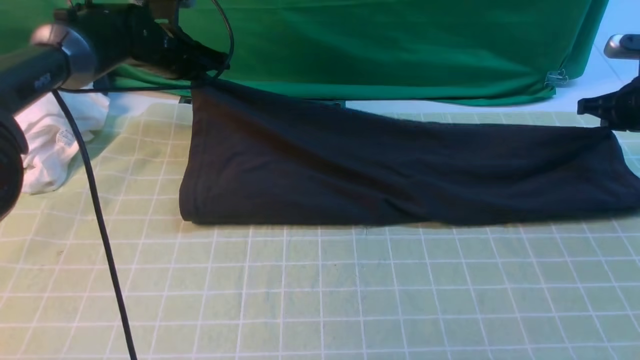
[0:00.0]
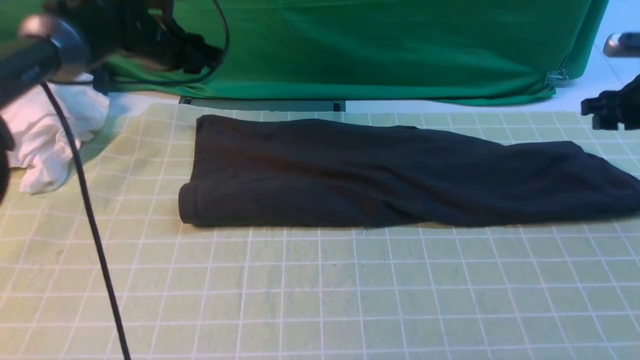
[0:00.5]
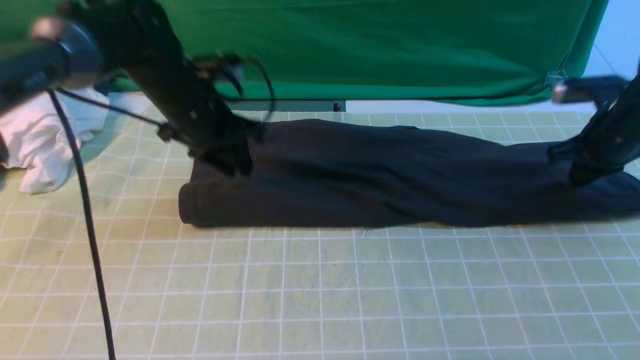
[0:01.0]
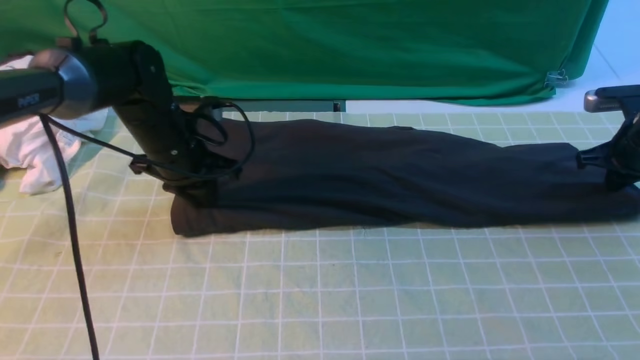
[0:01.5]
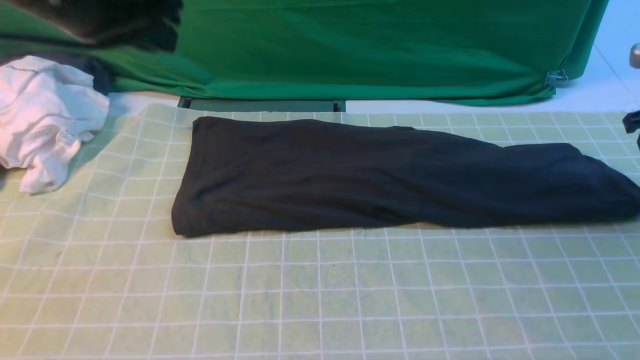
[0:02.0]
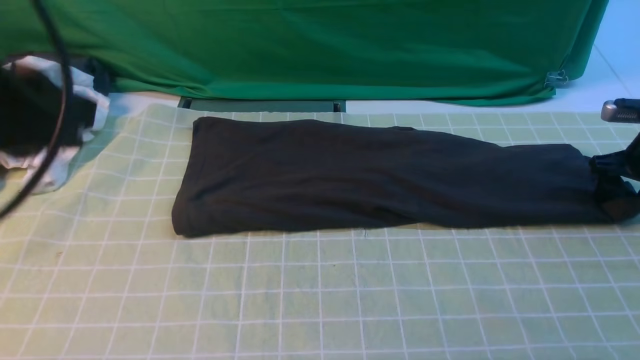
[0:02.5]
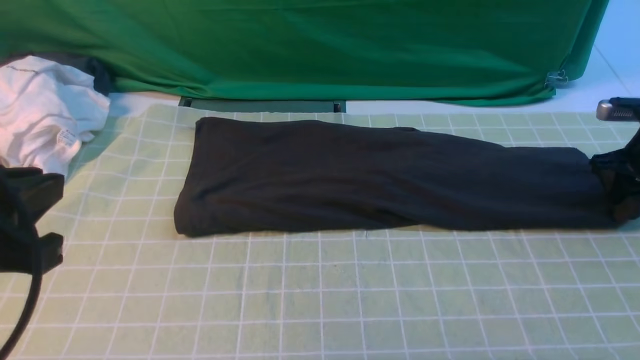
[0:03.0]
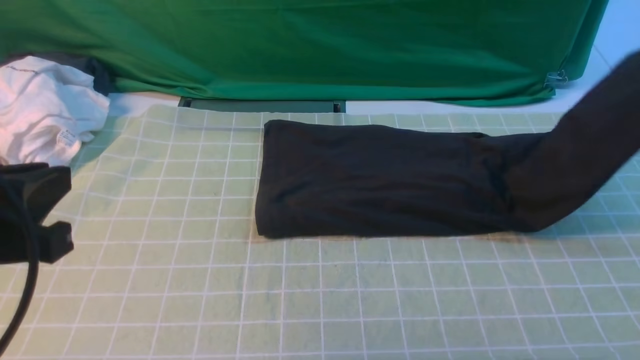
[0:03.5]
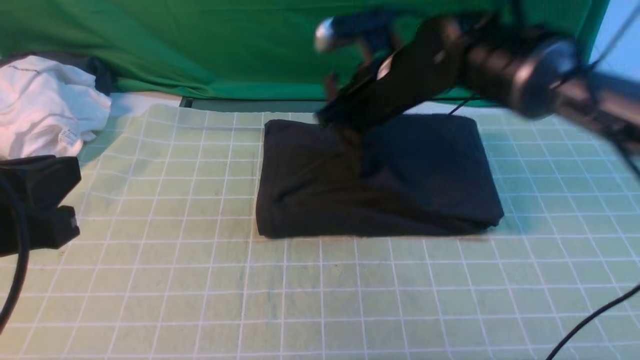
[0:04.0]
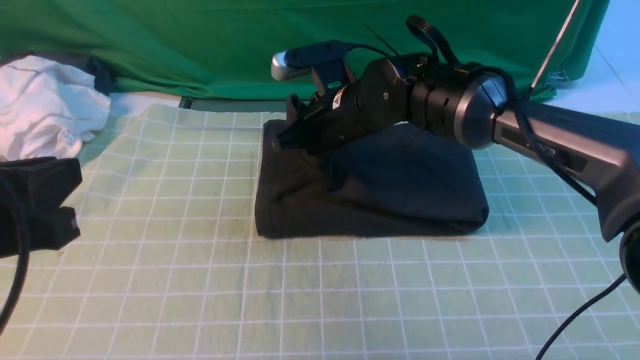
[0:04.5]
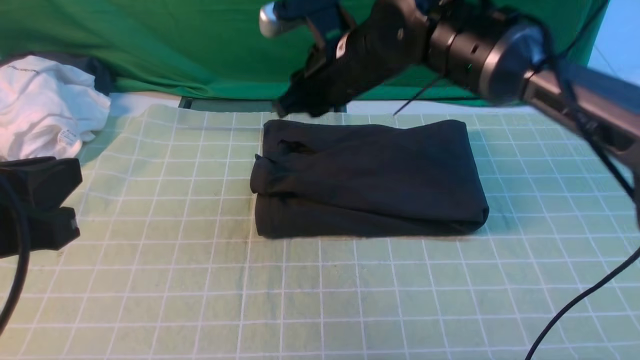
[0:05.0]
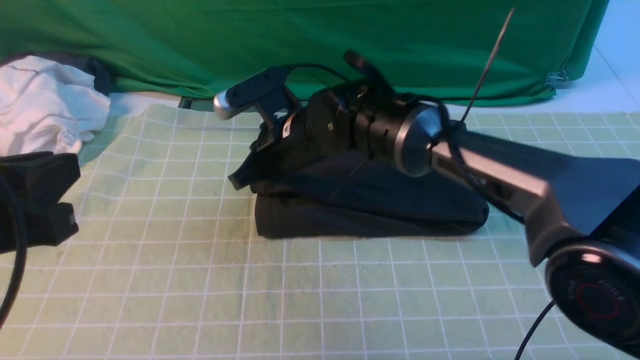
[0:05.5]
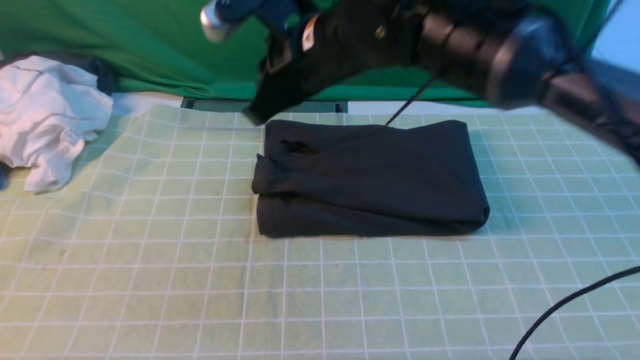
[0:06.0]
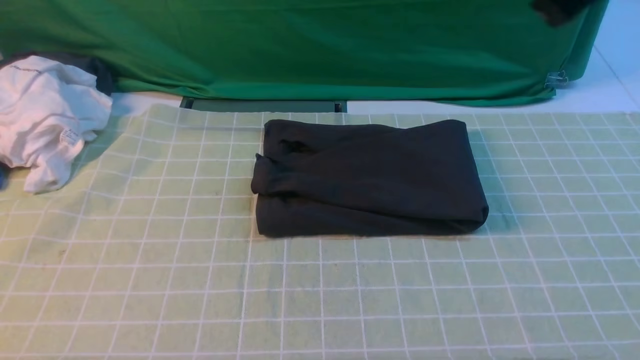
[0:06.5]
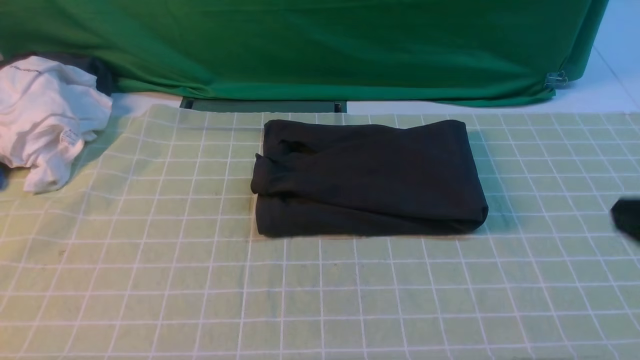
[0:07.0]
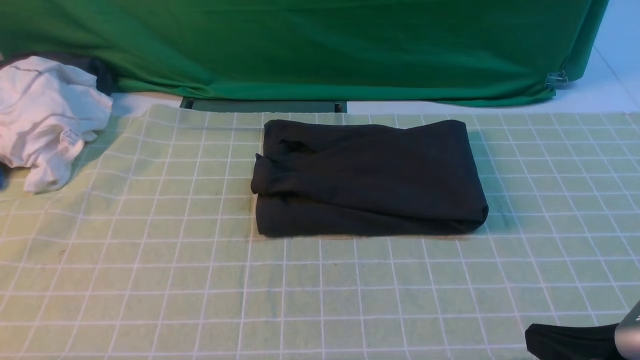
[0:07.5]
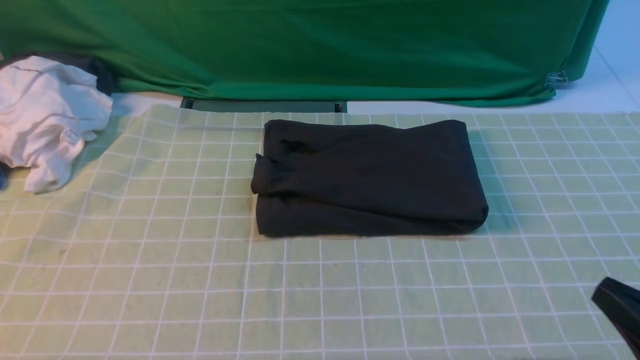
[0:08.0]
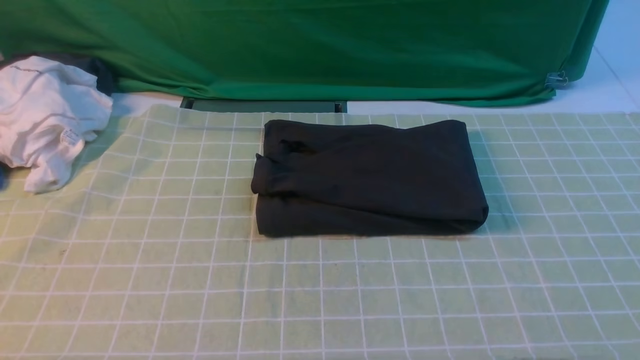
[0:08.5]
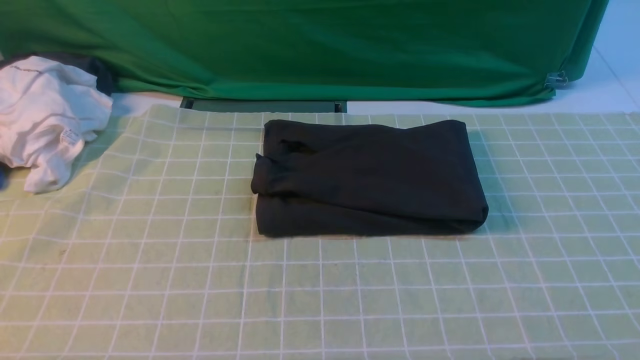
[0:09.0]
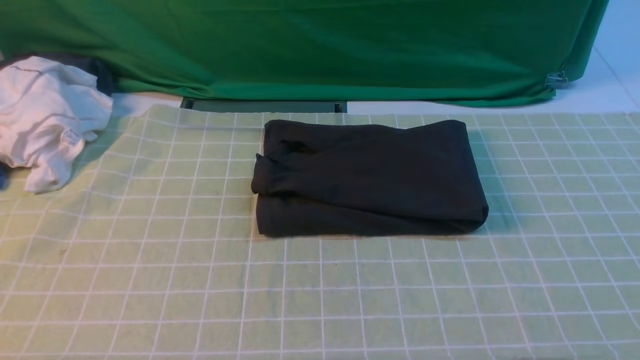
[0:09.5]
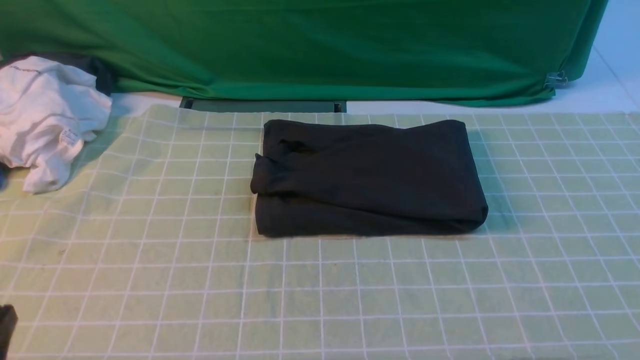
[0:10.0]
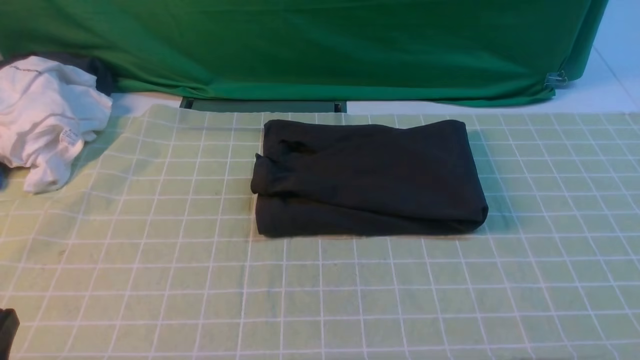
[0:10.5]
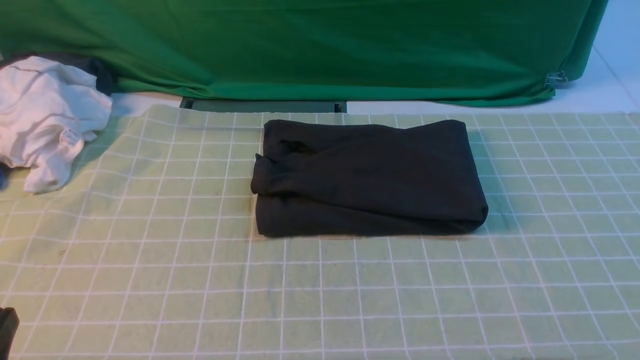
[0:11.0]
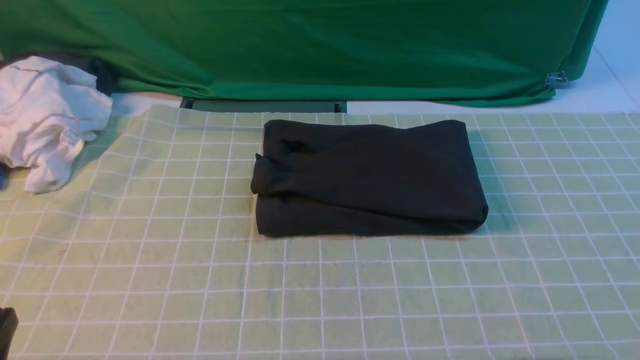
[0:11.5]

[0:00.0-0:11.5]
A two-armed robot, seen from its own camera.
Step, 0:00.5 to 0:02.5: use the right arm to clamp the right edge of the fabric.
Step, 0:03.0 to 0:04.5: use the right arm to drag the right edge of the fabric to the left and folds it over the left edge.
0:00.0 to 0:02.0: The right gripper opens up, while the left gripper shifts about 25 cm backward and upward, and opens, then closes once more.
0:02.0 to 0:04.0: The right gripper heads to the left, covering about 35 cm, and closes its fingers, while the left gripper travels backward and downward by some 20 cm.
0:04.0 to 0:06.0: The right gripper shifts roughly 15 cm upward, backward and to the left. The left gripper shifts roughly 5 cm backward.
0:06.0 to 0:07.5: The right gripper moves backward and to the right, approximately 35 cm; the left gripper ends up some 5 cm from where it was.
0:07.5 to 0:09.5: The right gripper moves to the right and downward, roughly 10 cm.
